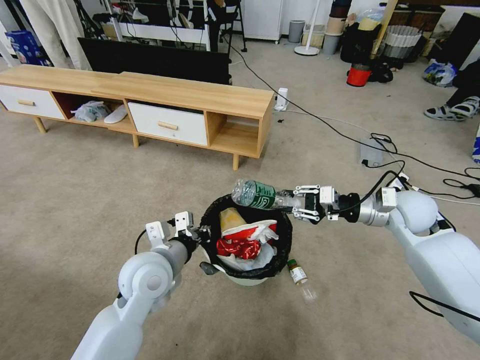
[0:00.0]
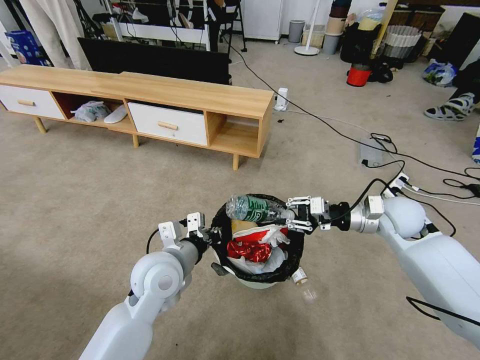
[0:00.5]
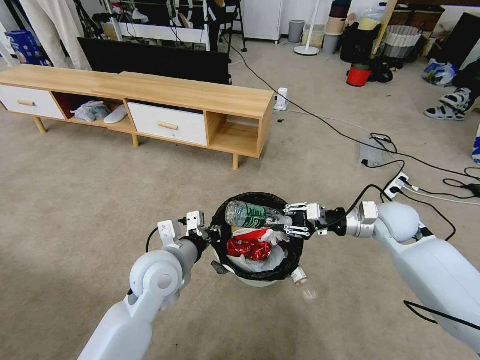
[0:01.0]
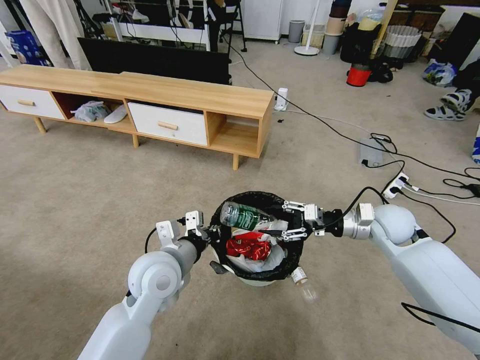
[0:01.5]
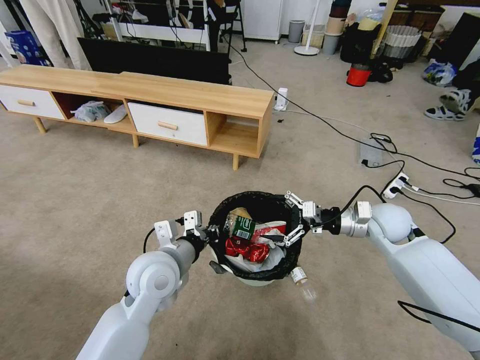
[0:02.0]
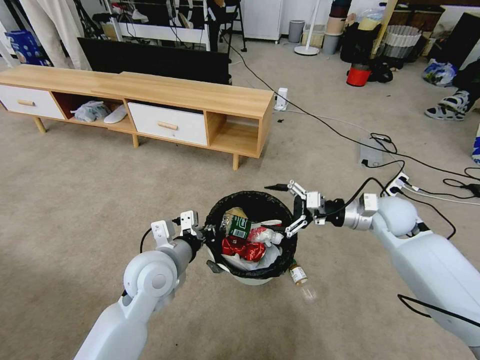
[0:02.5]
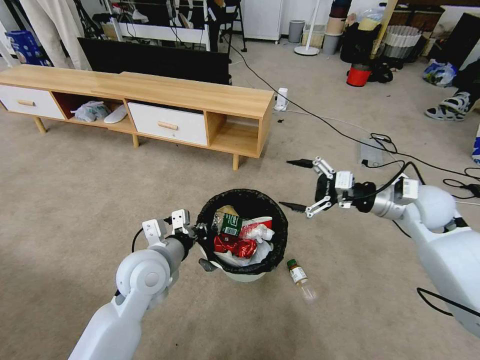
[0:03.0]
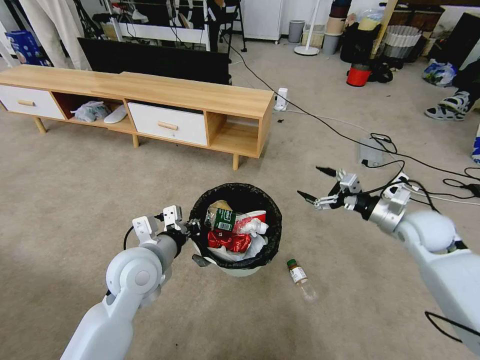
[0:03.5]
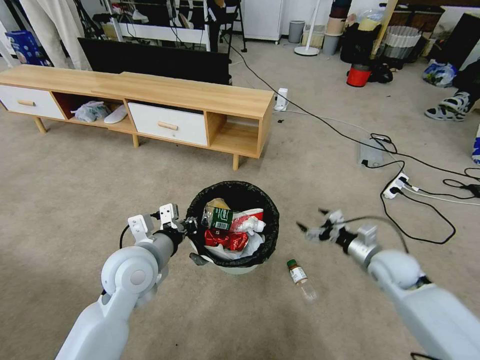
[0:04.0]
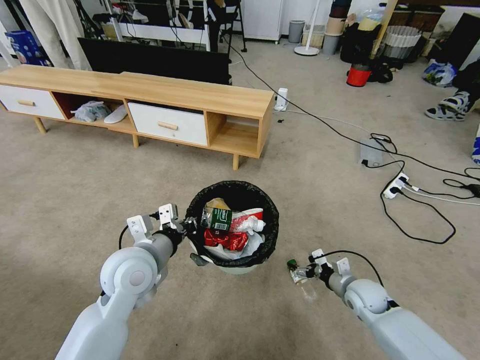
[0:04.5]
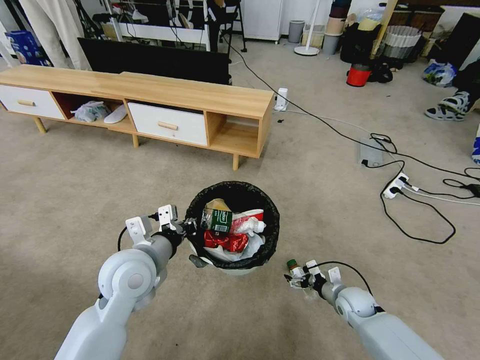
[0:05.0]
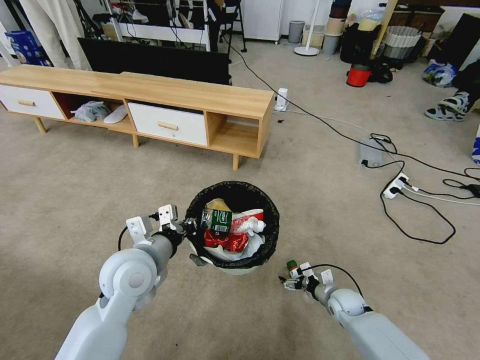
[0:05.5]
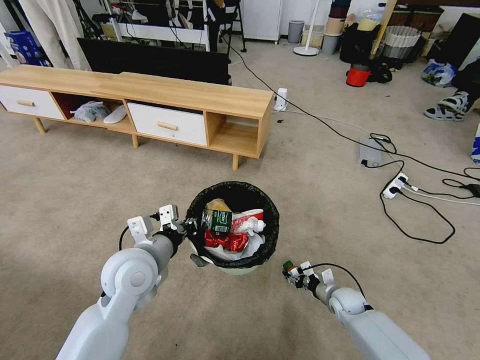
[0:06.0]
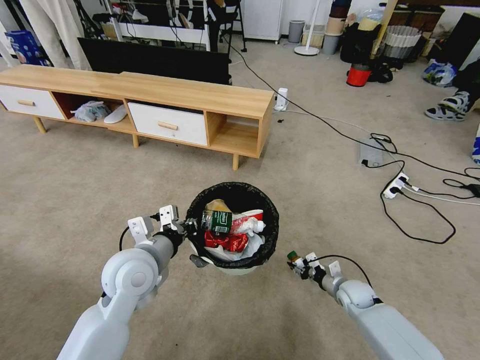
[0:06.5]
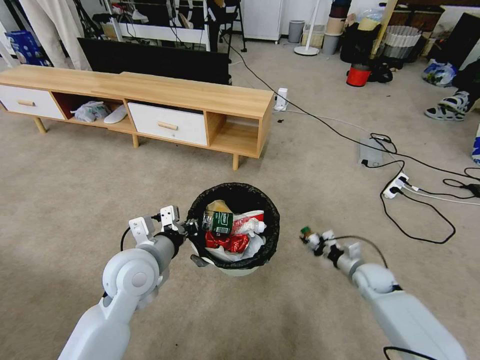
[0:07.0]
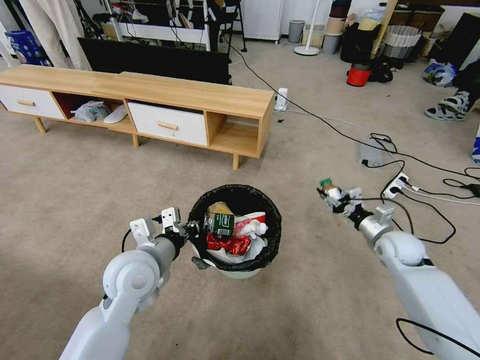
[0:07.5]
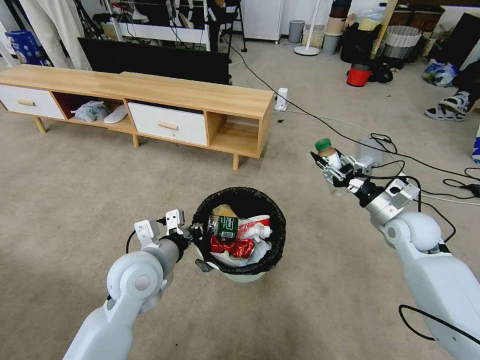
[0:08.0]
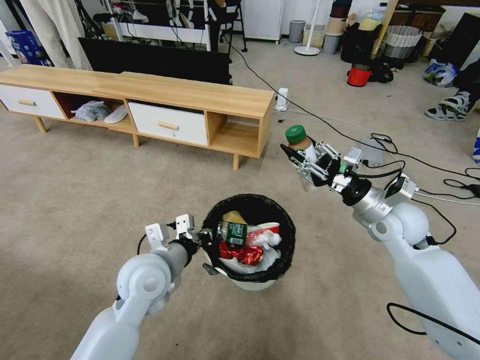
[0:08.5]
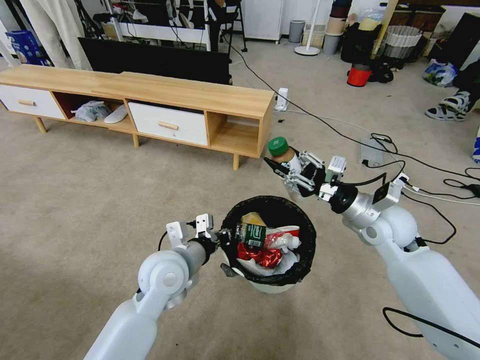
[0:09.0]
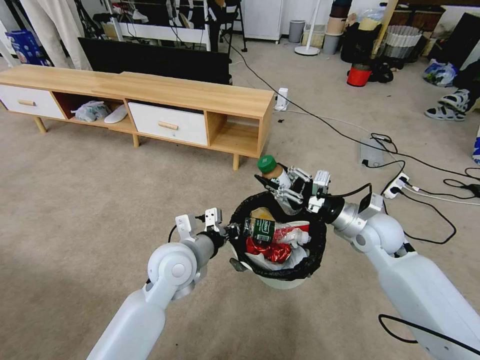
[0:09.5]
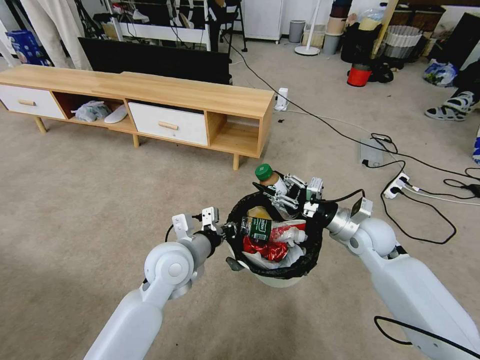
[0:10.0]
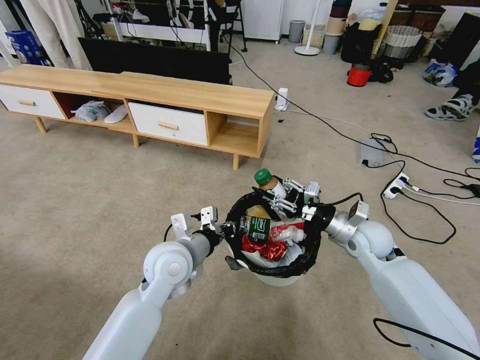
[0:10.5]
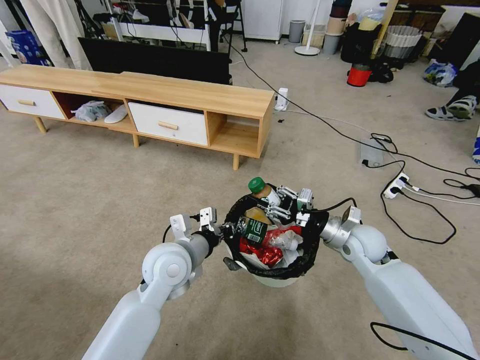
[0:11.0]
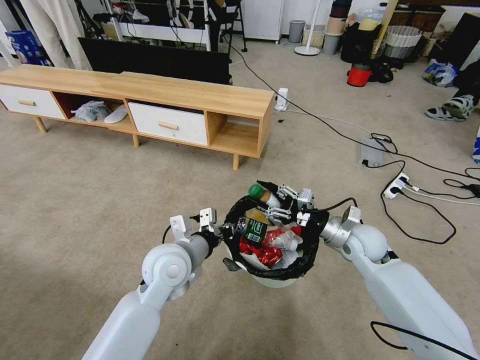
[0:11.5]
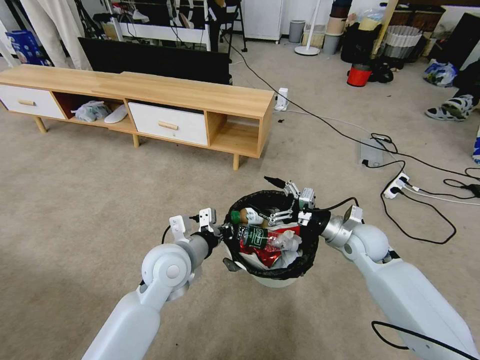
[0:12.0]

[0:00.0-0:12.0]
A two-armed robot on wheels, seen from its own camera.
Task of the whole recording: Pick up the trash bin and place the garbage on the floor into it.
0:00.0 to 0:02.0: The right gripper ends up some 5 cm from where it was, and opens.
0:02.0 to 0:04.0: The right gripper shifts some 10 cm downward and backward.
0:04.0 to 0:06.0: The right gripper heads downward, covering some 20 cm, and closes its fingers.
0:06.0 to 0:08.0: The right gripper travels upward by roughly 30 cm.
0:08.0 to 0:10.0: The right gripper is displaced to the left by some 10 cm. Meanwhile the left gripper shifts approximately 5 cm to the right.
0:10.0 to 0:12.0: The right gripper opens.

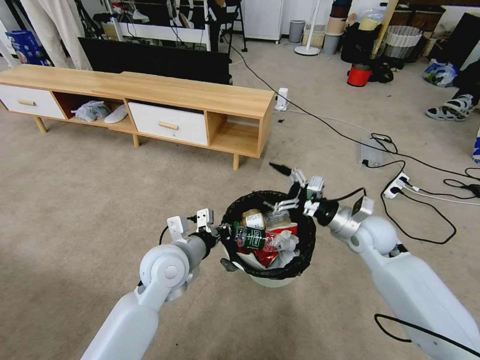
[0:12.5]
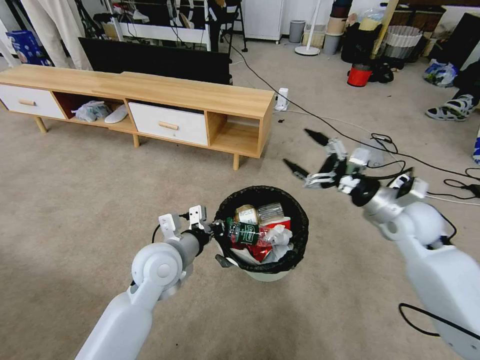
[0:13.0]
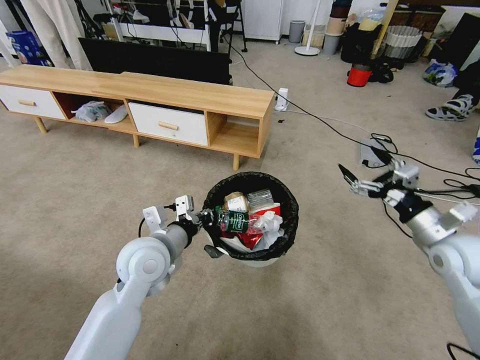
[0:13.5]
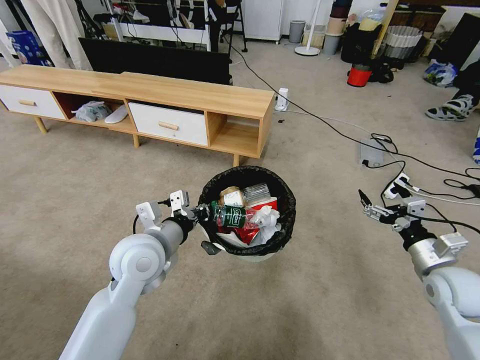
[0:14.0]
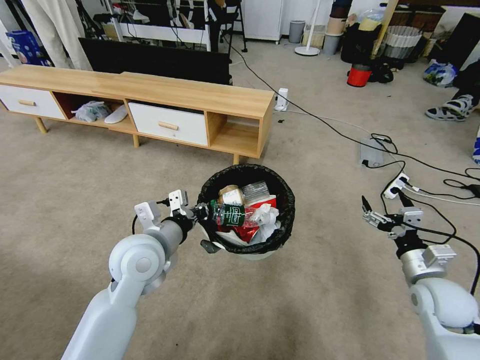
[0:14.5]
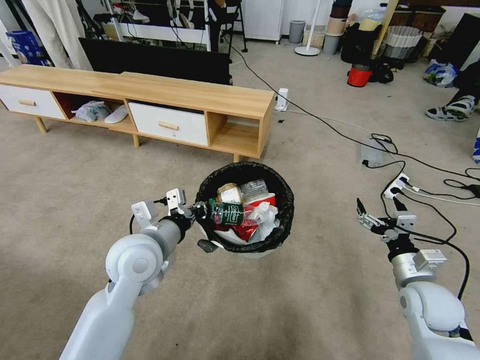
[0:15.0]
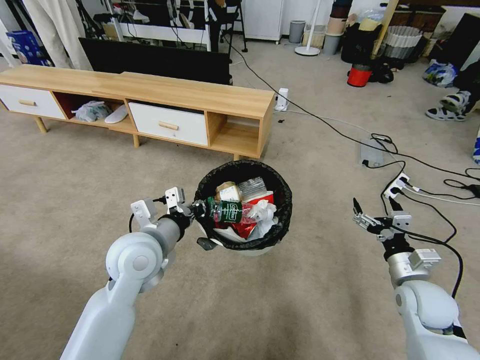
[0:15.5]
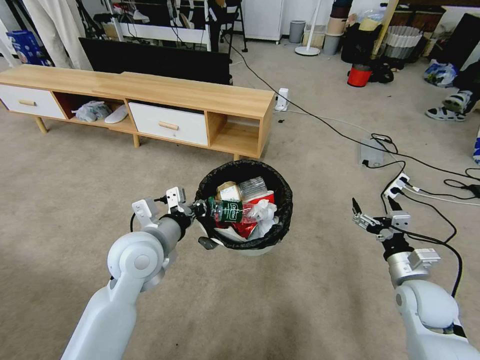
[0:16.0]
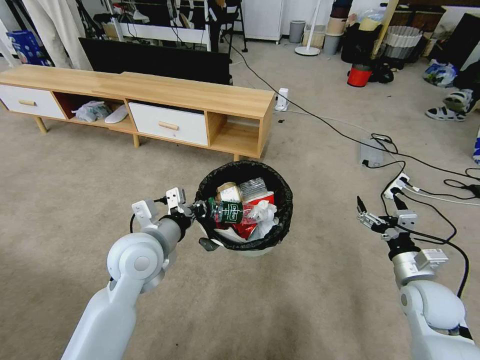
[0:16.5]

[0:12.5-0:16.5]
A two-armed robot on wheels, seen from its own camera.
Task of the whole recording: Pick up the trash bin and place the garbage on the floor into it.
0:12.5 to 0:14.5: The right gripper travels backward and to the right by approximately 15 cm. Meanwhile the left gripper ends up roughly 5 cm from where it was.
0:14.5 to 0:16.5: There are only small adjustments of the grippers.
